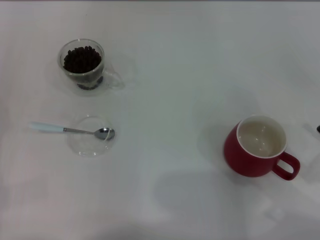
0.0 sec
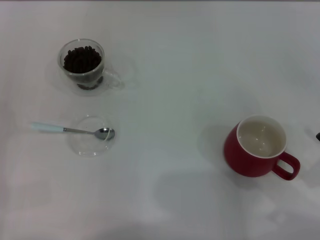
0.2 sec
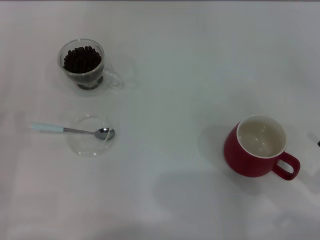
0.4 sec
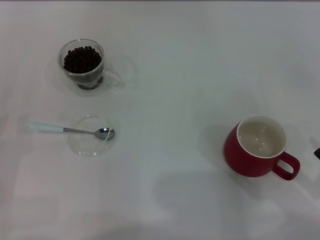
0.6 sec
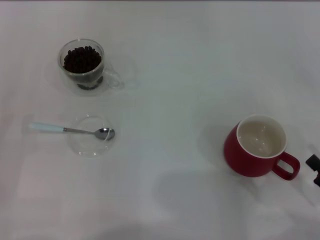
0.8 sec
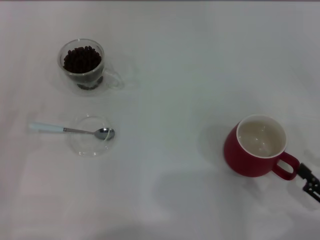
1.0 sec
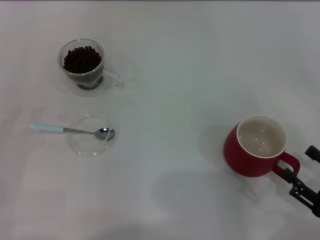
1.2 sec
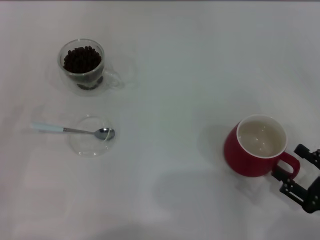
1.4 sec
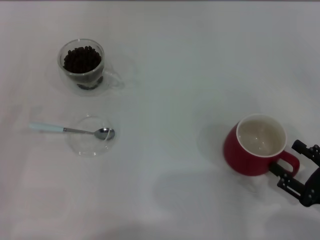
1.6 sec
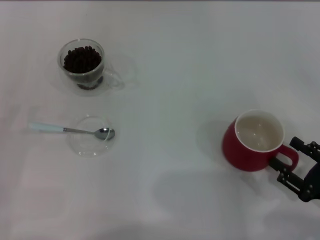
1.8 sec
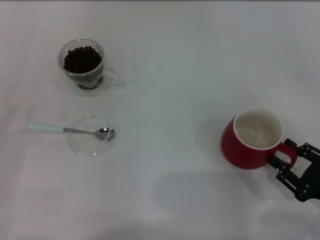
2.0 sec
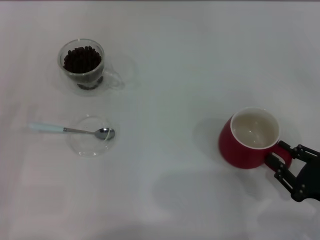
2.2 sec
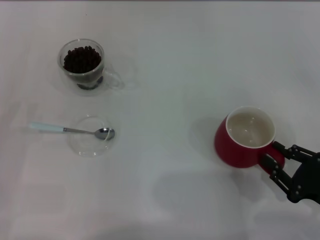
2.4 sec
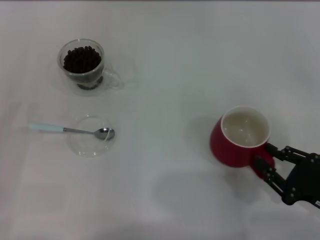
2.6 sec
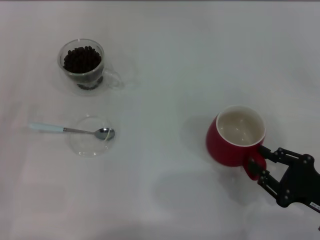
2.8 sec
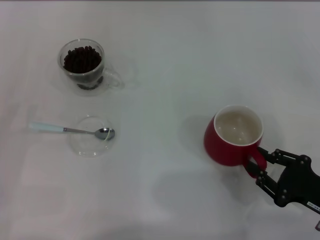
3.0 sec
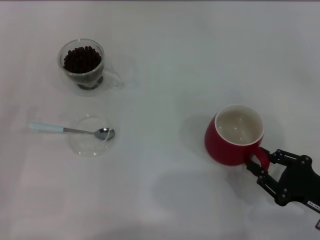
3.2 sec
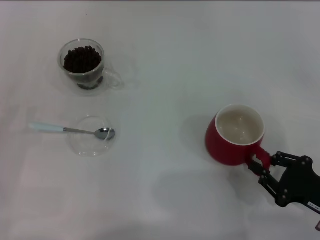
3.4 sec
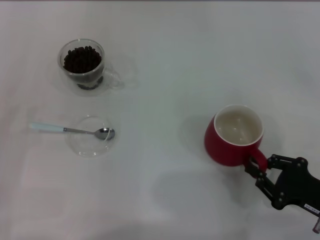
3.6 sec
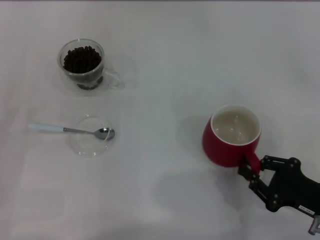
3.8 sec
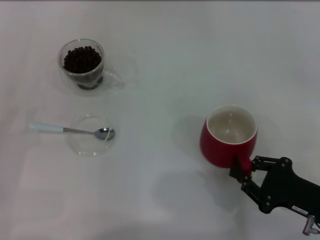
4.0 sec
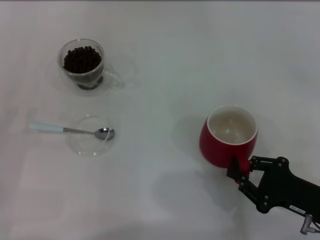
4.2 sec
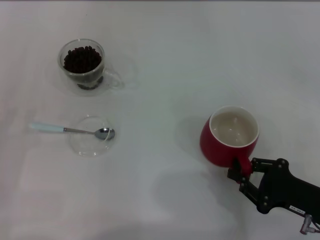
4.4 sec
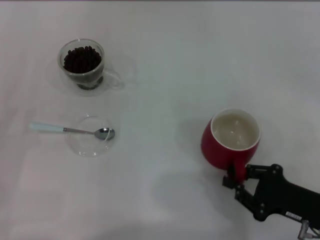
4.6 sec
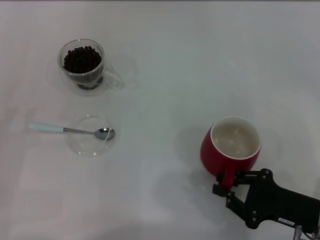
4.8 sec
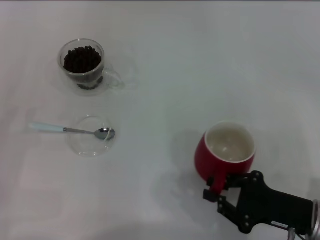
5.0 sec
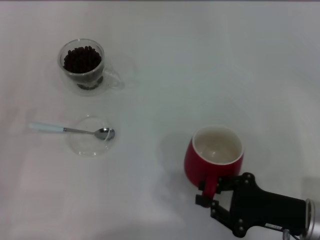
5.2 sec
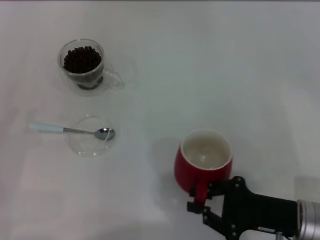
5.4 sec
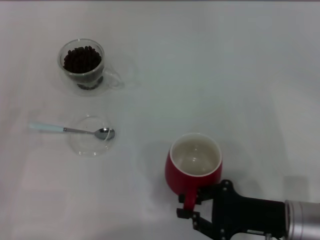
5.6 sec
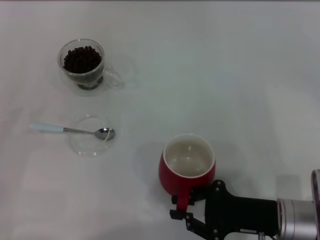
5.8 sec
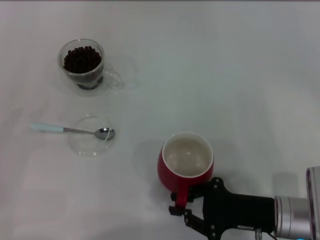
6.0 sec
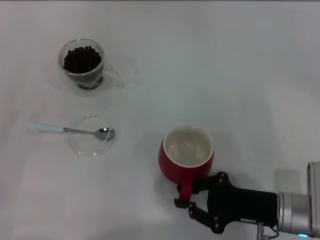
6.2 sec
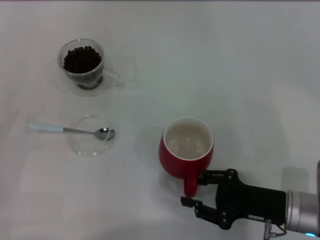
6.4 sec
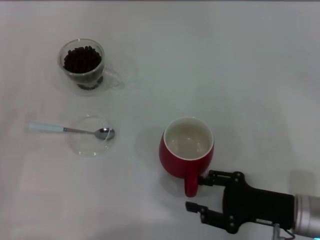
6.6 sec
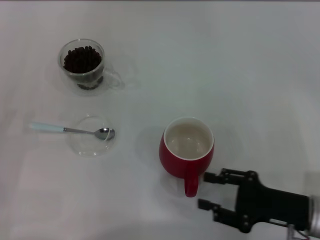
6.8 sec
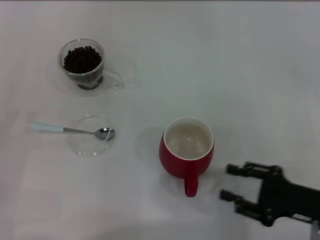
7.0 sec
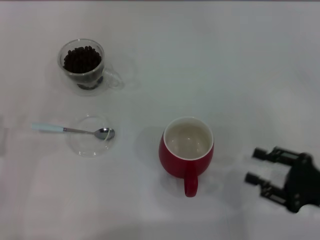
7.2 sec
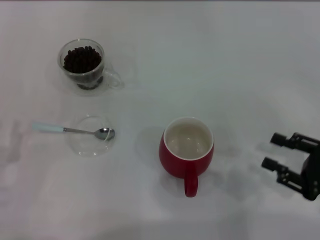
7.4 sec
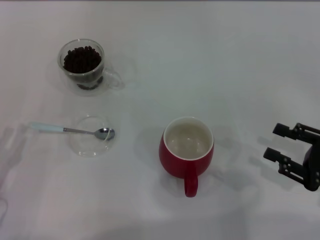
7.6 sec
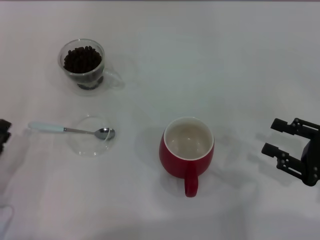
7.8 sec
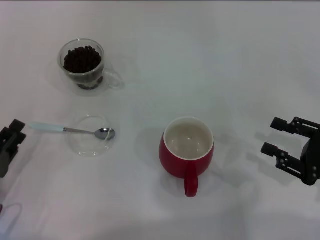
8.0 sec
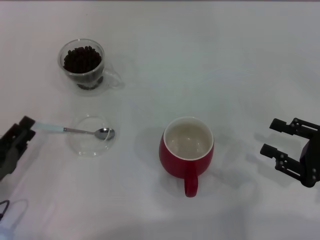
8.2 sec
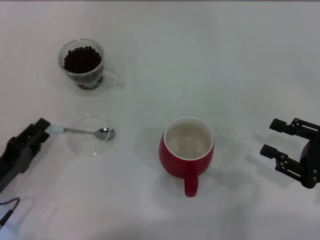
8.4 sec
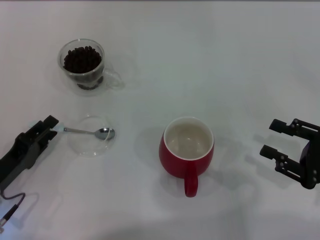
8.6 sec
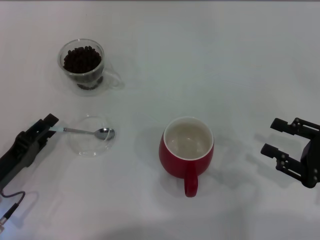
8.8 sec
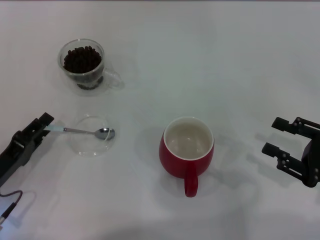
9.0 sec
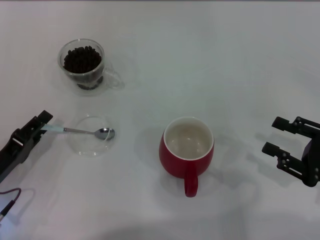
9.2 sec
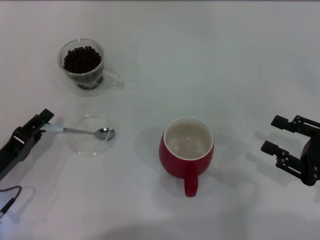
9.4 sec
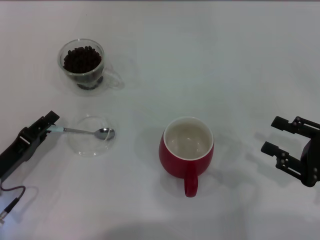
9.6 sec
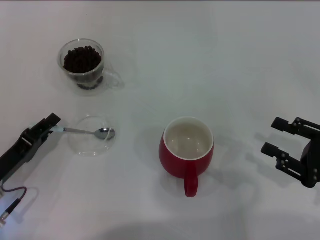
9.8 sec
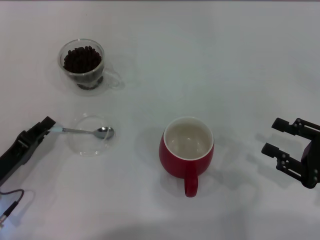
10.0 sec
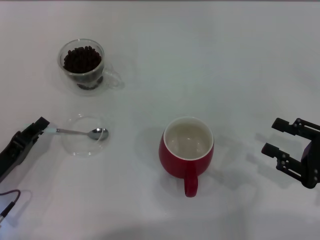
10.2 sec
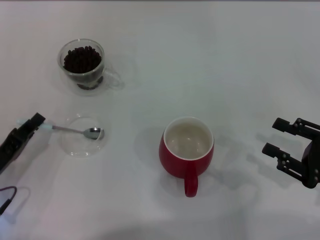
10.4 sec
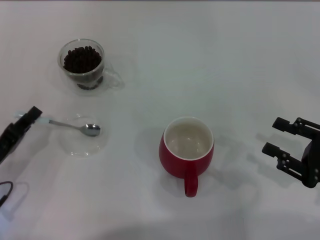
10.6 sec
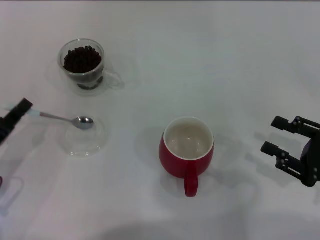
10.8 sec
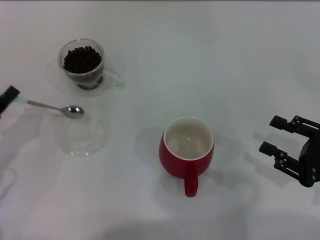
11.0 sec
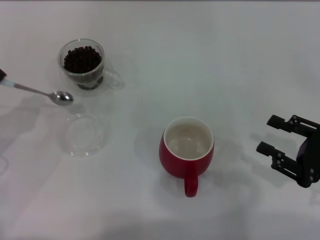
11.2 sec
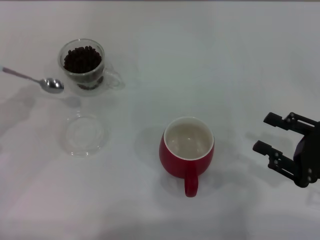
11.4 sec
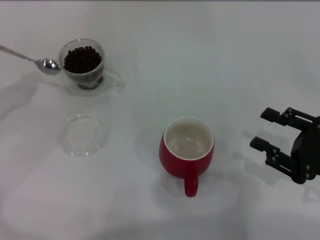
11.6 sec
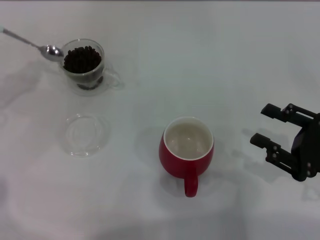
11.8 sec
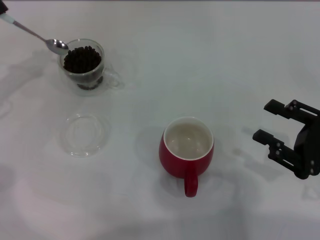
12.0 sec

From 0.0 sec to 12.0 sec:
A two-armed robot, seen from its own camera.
Task of the whole recording: Use a blue spoon to take out the coffee beans from the glass and pour them into the red cup.
Step, from 0.0 sec to 7.0 sec: Move the cup to the center of view with the left gripper.
Step, from 7.2 sec to 11.4 sec: Pick up the spoon with the right gripper.
From 1.6 sec to 3.0 sec: The right gripper closes up.
From 3.0 sec to 4.4 sec: There are only small adjustments of the grippers.
From 4.4 sec to 6.0 sec: The right gripper goes some 5 cm to the left.
From 6.0 sec to 7.6 sec: The right gripper heads to the right, covering some 15 cm, and opens.
From 9.0 sec to 10.4 sec: The left gripper closes its fingers.
From 10.4 sec to 12.0 sec: The left gripper is displaced forward, upward and to the left by roughly 20 cm.

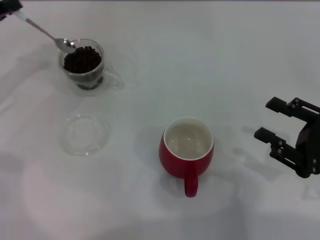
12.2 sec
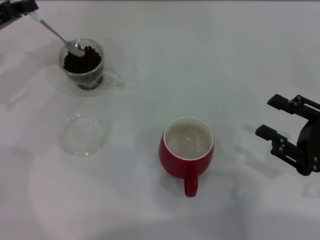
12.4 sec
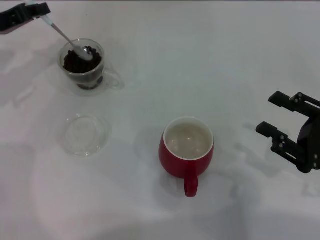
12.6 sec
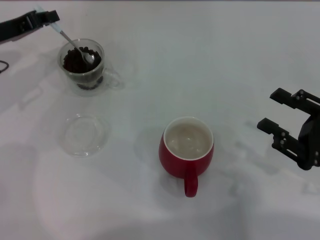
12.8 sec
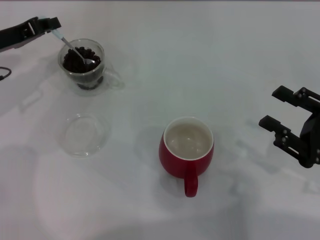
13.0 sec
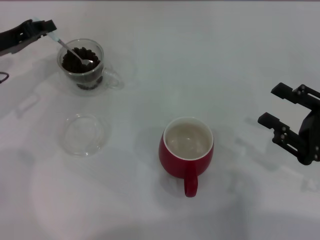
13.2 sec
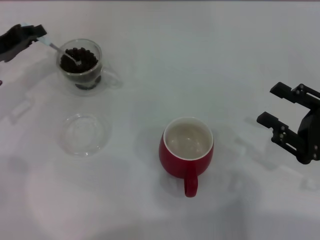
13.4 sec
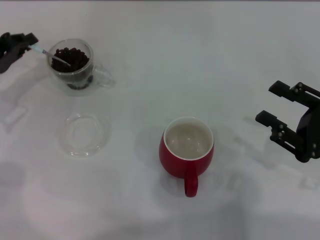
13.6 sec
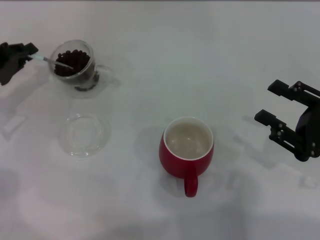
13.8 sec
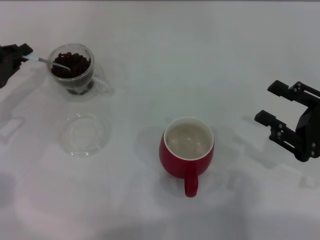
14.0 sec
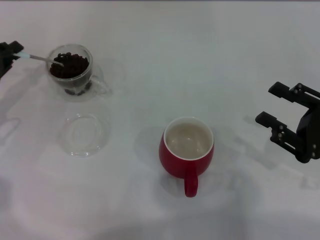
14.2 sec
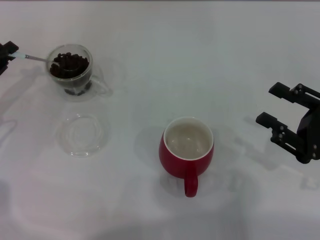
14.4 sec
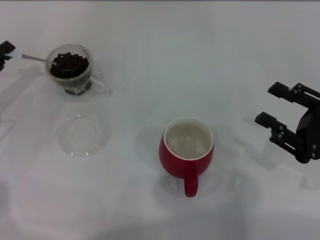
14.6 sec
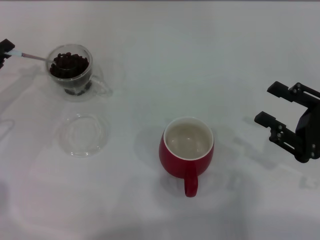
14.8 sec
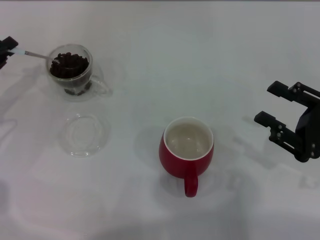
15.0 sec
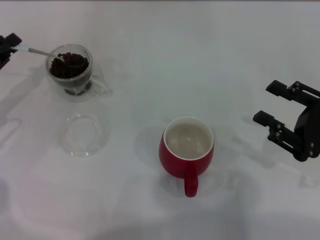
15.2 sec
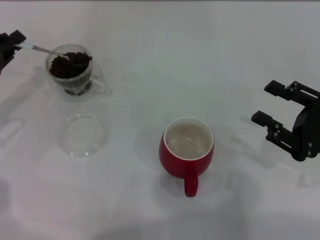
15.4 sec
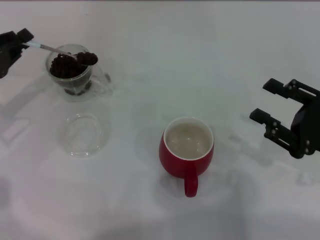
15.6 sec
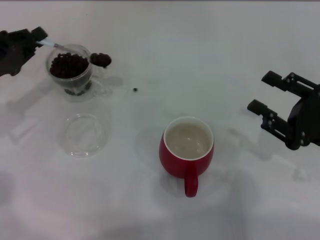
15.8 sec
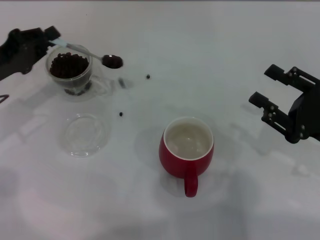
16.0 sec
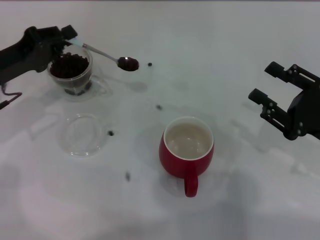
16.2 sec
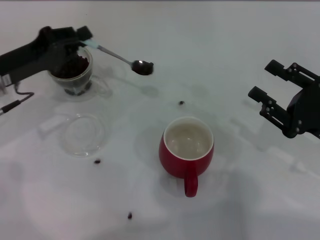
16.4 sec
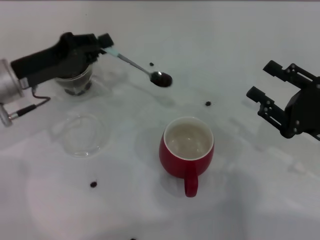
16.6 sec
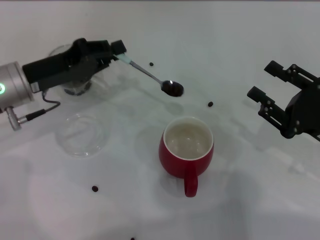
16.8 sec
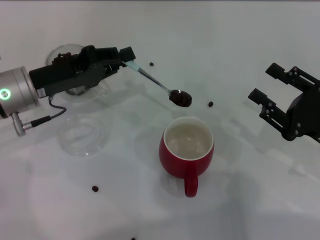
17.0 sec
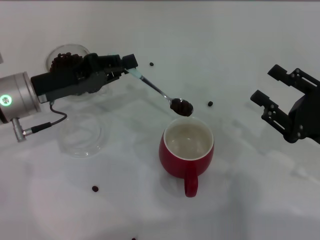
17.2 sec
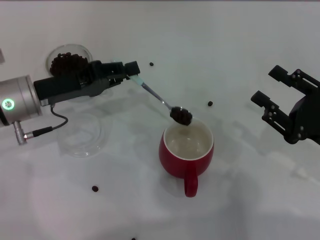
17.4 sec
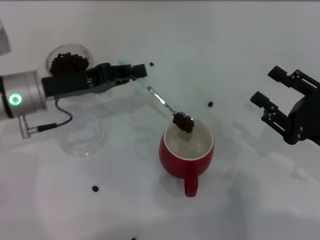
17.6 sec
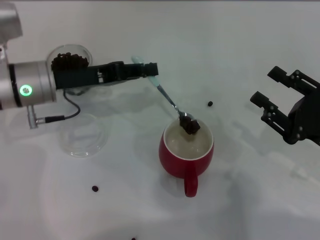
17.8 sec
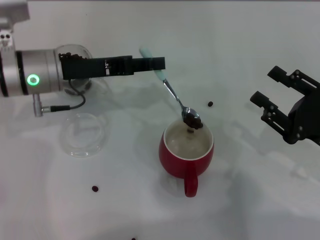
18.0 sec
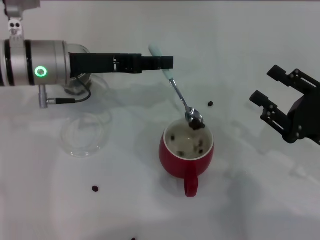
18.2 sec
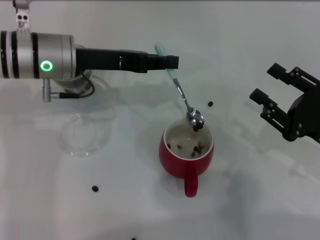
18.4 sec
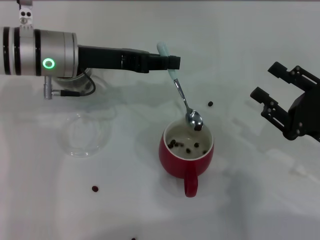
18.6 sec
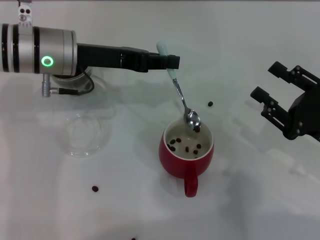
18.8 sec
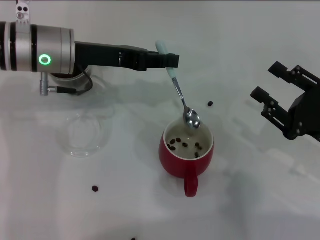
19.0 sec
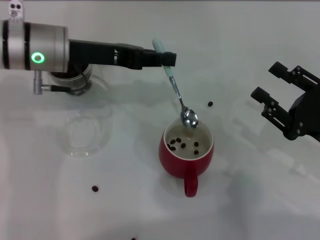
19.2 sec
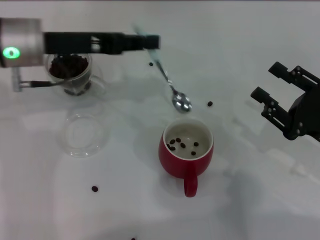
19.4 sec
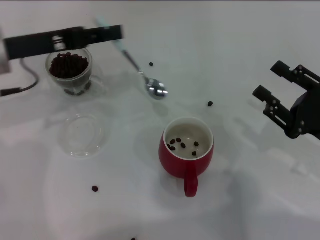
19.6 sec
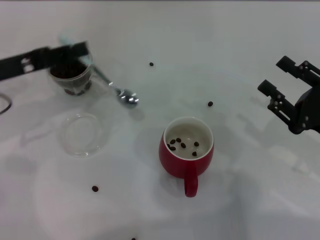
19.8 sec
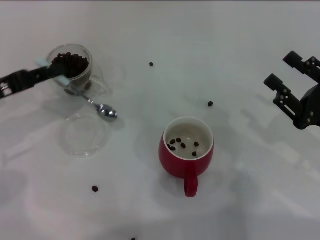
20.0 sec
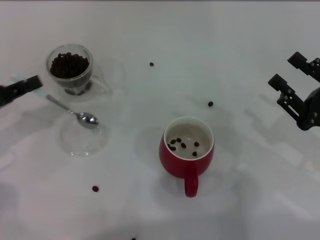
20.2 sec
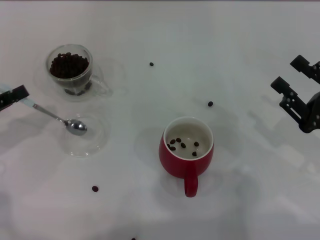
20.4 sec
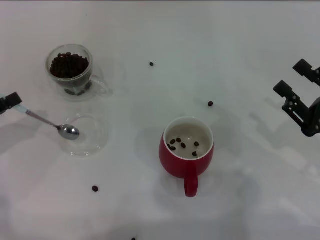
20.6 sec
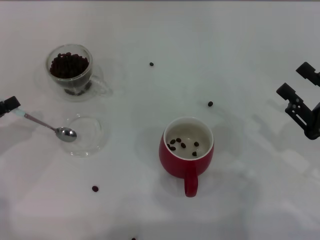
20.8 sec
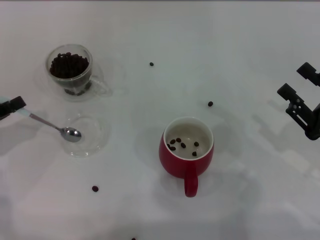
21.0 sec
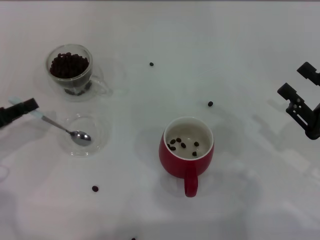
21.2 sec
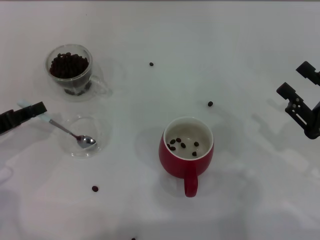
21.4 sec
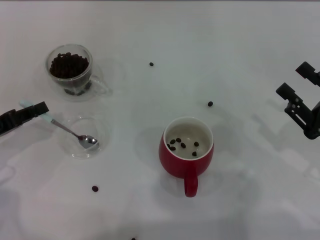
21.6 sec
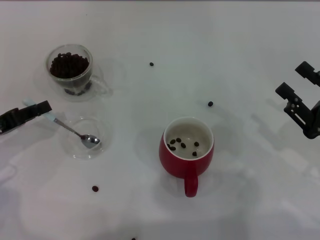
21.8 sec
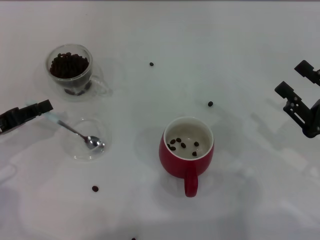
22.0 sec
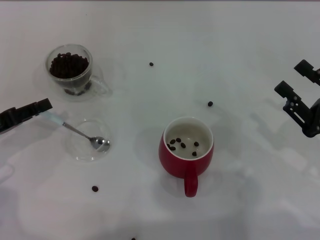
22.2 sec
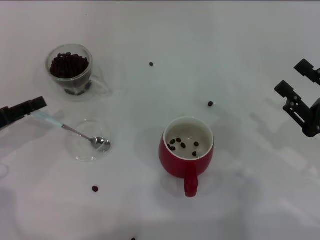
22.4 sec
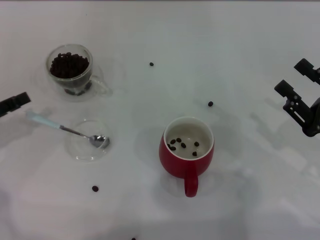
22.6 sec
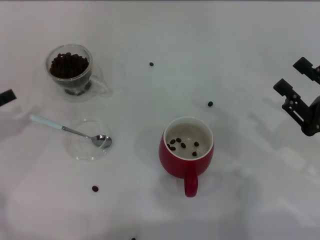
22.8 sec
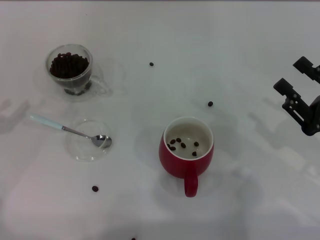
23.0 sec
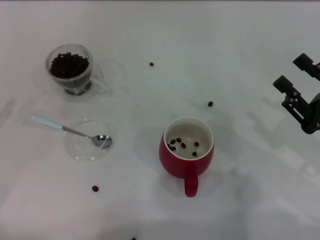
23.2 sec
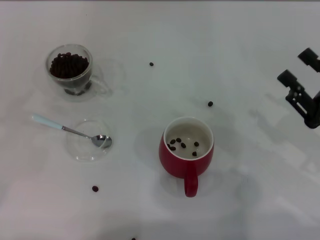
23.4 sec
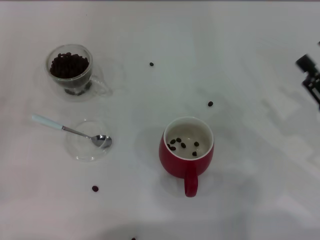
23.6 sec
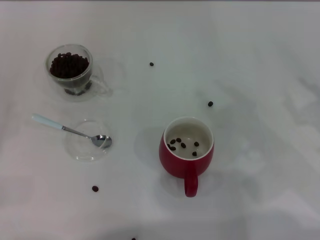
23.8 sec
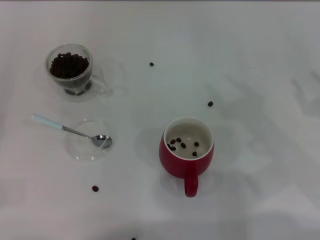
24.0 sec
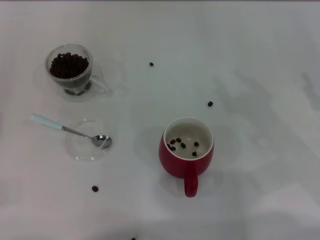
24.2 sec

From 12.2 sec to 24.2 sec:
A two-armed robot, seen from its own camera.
Task of the whole recording: Use a blue spoon to take out the coffee beans from the glass and pour them into the red cup.
From 12.2 sec to 13.8 sec: The left gripper heads downward, covering approximately 5 cm.
From 13.8 sec to 15.2 sec: The grippers stay close to where they were, moving slightly.
From 15.2 sec to 16.6 sec: The left gripper shifts approximately 10 cm to the right.
From 16.6 sec to 18.2 sec: The left gripper goes some 5 cm to the right.
From 18.2 sec to 19.8 sec: The left gripper is displaced to the left by roughly 10 cm.
From 19.8 sec to 21.2 sec: The left gripper travels backward, to the left and downward by some 10 cm.
From 21.2 sec to 22.6 sec: The left gripper opens its fingers.
From 22.6 sec to 24.2 sec: The left gripper goes roughly 10 cm backward and to the left.
